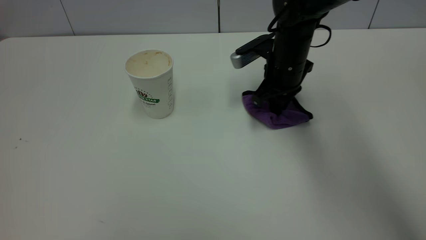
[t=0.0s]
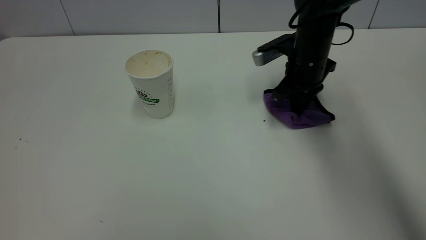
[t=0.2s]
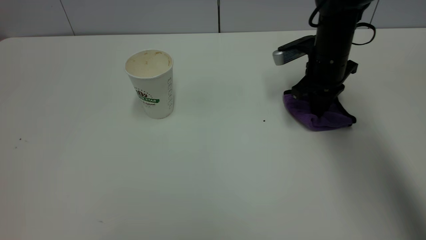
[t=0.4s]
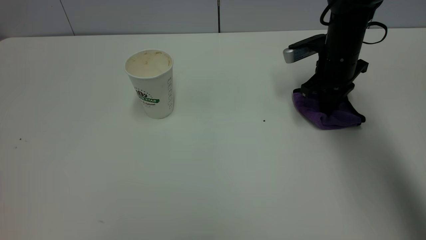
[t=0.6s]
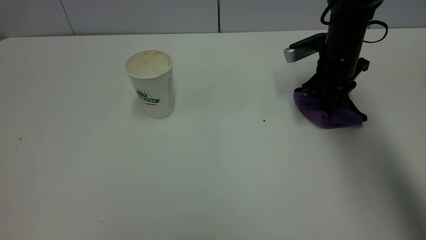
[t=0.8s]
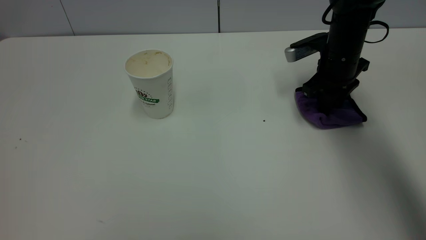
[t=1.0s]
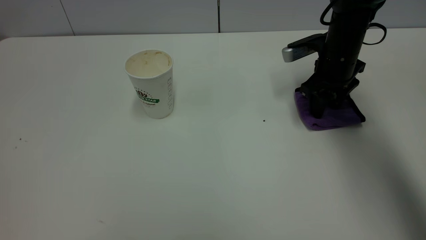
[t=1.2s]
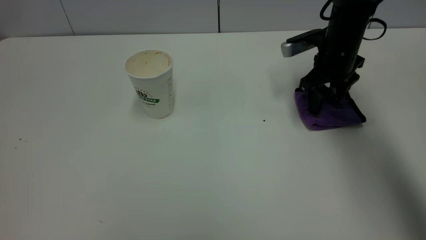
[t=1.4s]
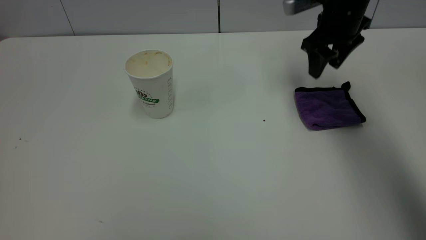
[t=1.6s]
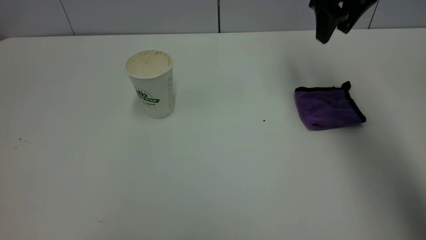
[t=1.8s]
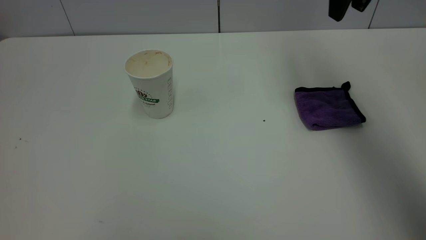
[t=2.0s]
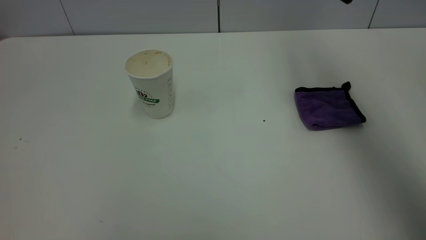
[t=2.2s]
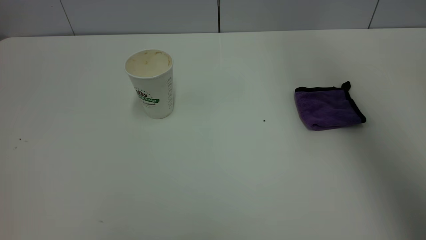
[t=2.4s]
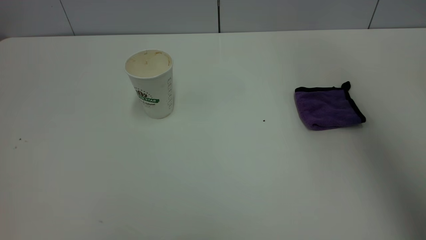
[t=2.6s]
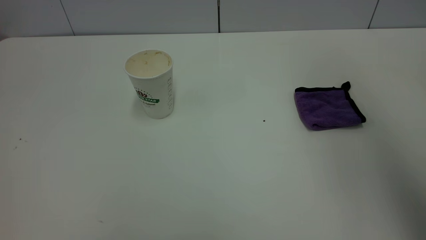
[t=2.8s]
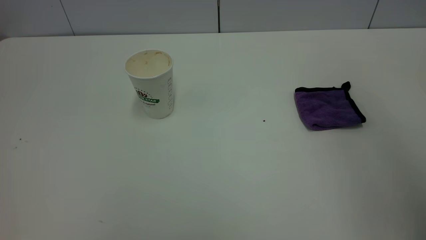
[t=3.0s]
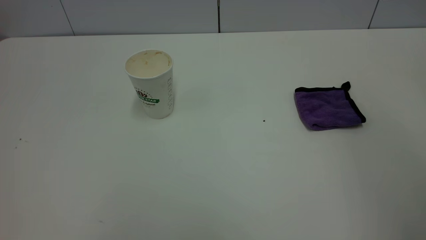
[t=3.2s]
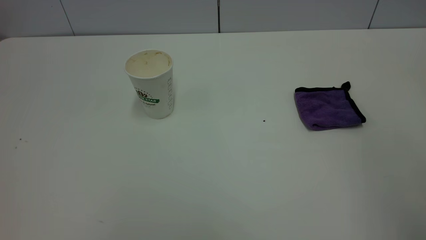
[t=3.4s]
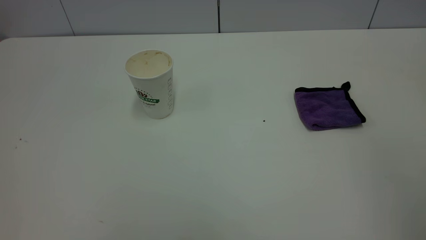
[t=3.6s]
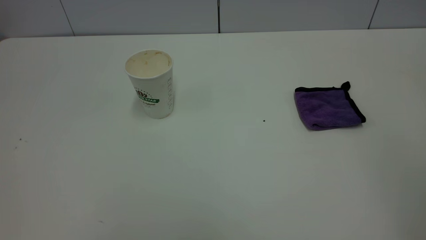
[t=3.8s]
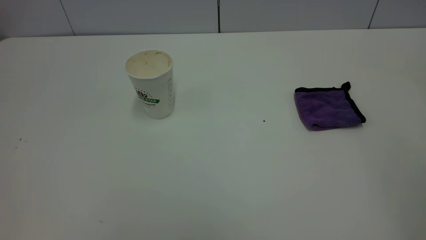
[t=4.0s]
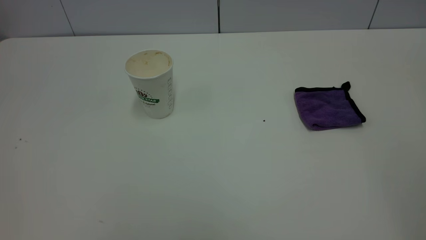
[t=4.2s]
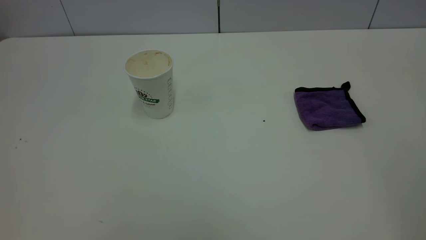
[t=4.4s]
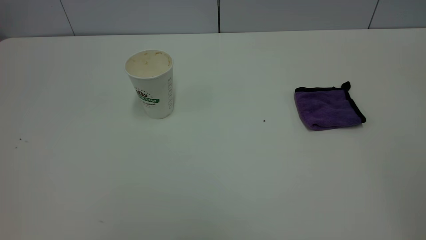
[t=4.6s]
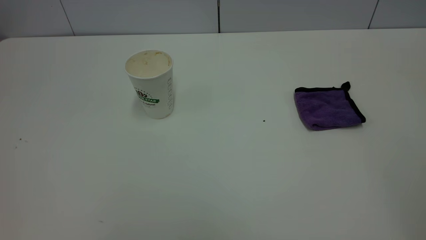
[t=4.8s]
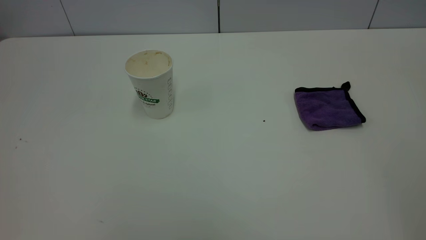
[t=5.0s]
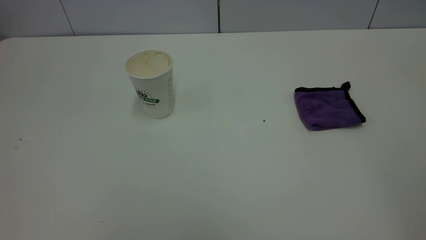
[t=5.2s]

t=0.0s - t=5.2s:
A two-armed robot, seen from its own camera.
Task of the whole recording: the left gripper pick up the fallen cup and place it upright, the right gripper grasp the purple rag and wipe the tea stain on the table, the right gripper put the purple rag back in its original position.
t=0.0s - t=1.8s: The right gripper heads upward and to the right, covering some 20 cm, and opens.
t=1.8s - t=3.4s: The right gripper shifts approximately 40 cm backward.
